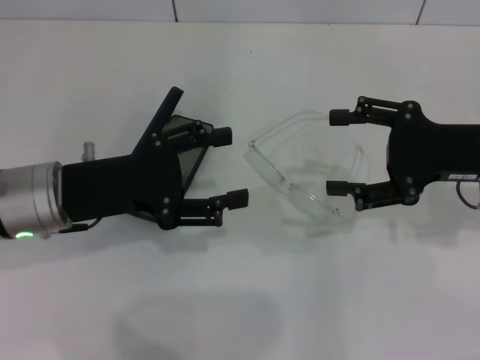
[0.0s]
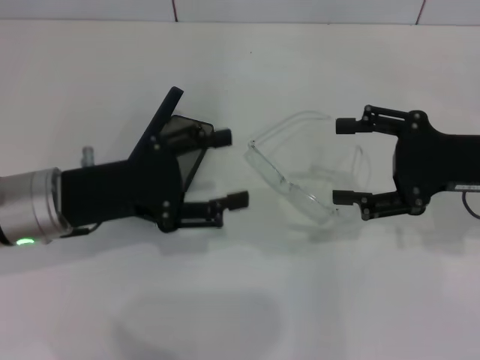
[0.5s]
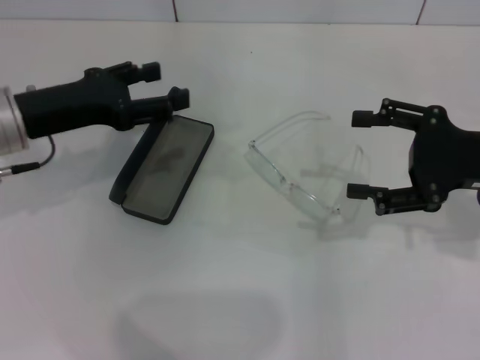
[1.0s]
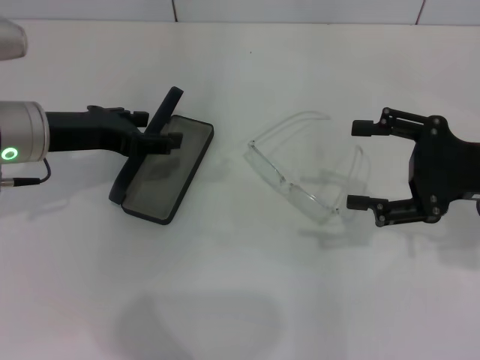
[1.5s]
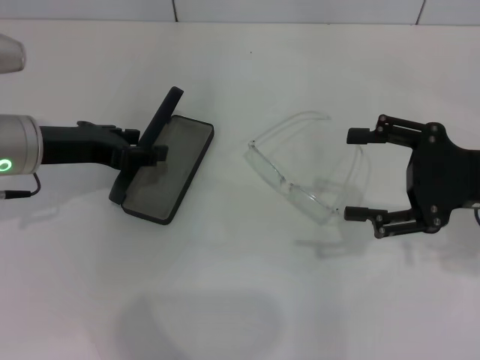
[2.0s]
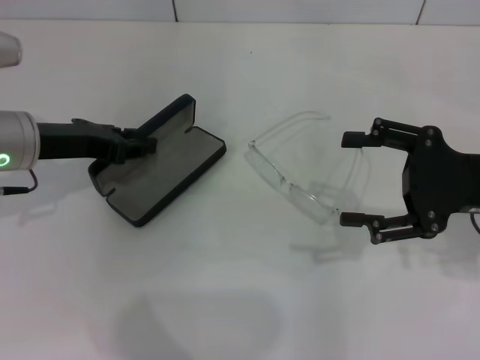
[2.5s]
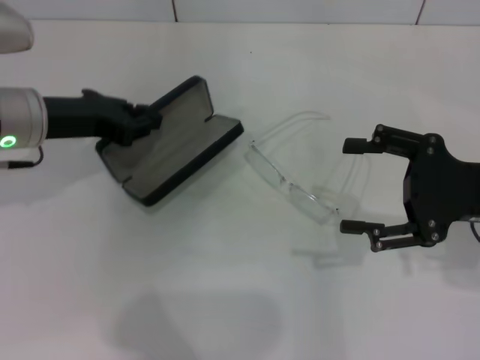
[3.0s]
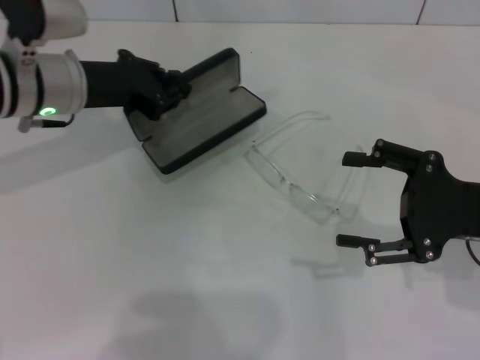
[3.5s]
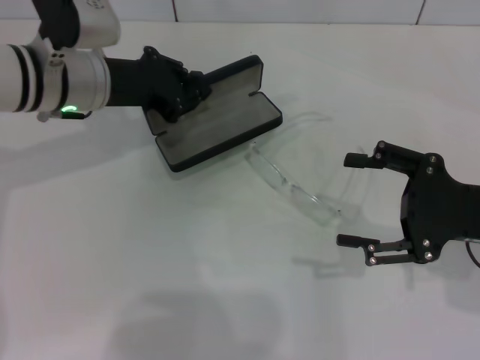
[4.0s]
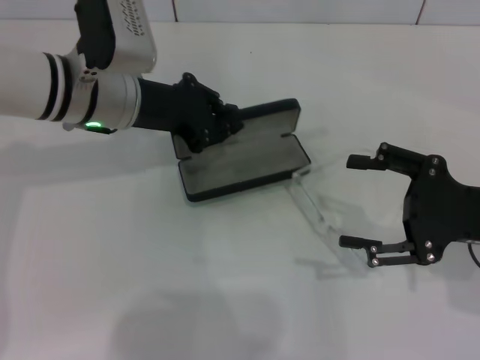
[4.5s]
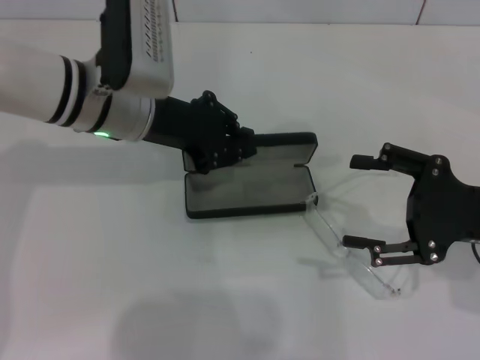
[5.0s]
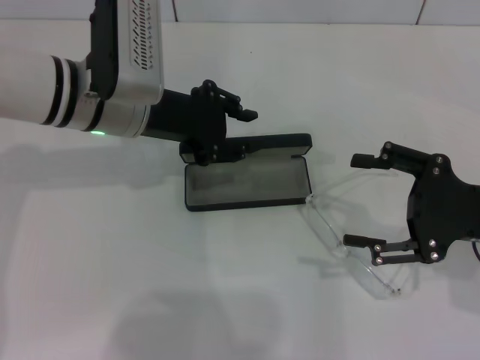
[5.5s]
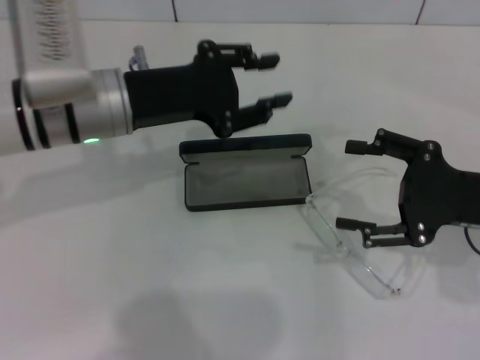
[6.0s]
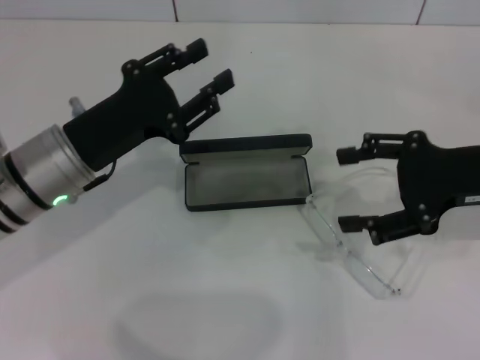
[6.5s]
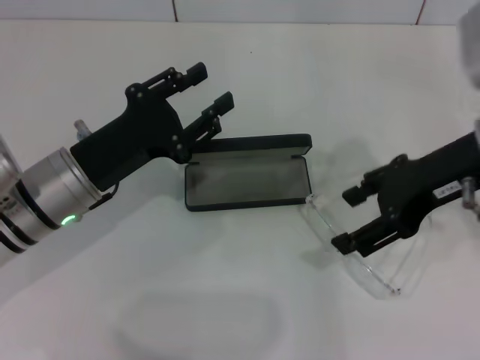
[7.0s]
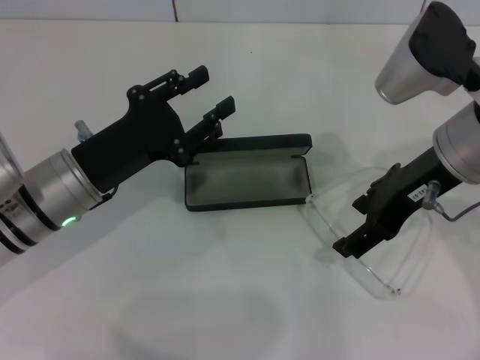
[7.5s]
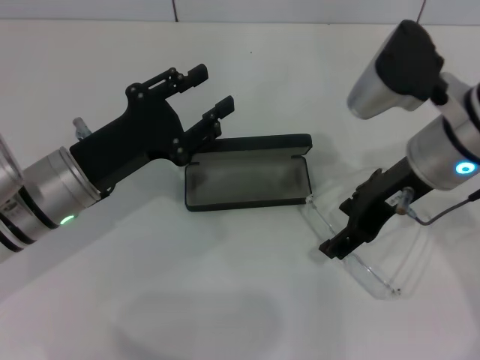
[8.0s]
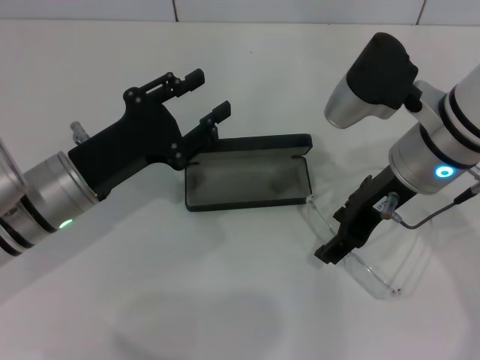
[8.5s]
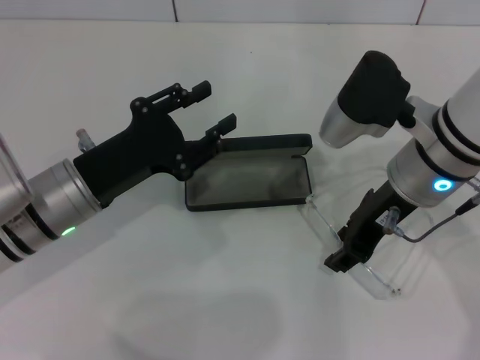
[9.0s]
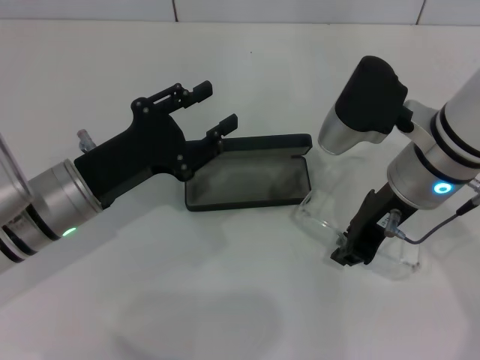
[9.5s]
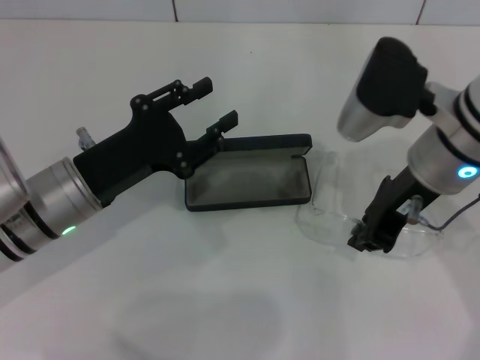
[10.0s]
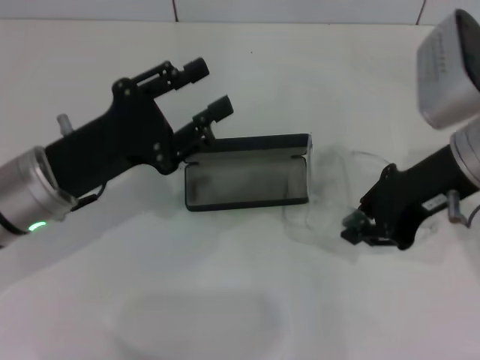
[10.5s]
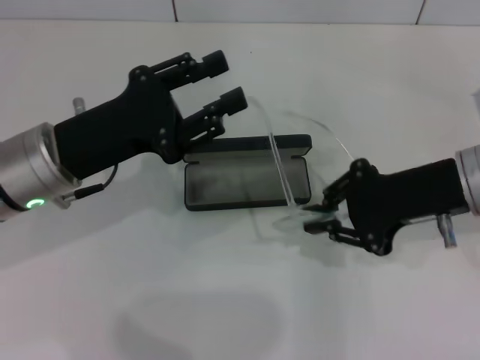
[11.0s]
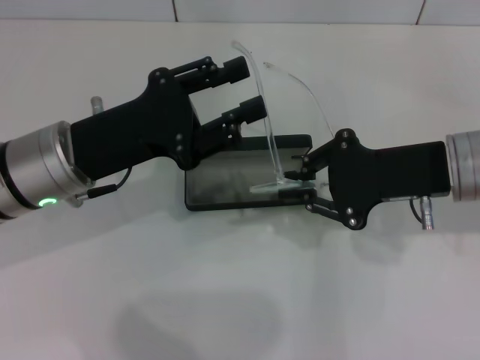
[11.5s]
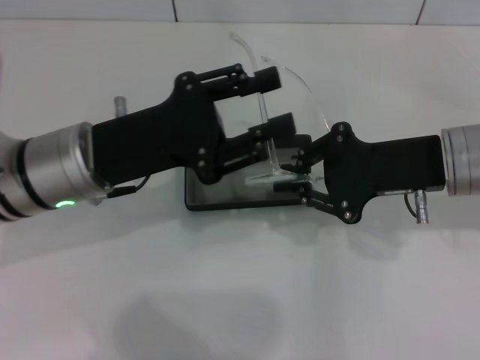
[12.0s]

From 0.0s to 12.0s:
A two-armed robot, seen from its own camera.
Step, from 0.0s to 2.0s: Grab the glasses case with your left hand.
Step, from 2.5s to 5.0s: Place the glasses case in the center of the table with your left hand.
Step, from 6.0s to 9.0s: Grab the eyeglass frame with your right hand.
From 0.0s to 2.0s: The left gripper heads forward, covering approximately 5 cm.
From 2.0s to 4.0s: The left gripper heads to the right and forward, covering roughly 10 cm, and closes up.
From 4.0s to 6.0s: The left gripper ends up approximately 5 cm from where it was, and opens.
From 6.0s to 8.0s: The left gripper goes approximately 10 cm downward and backward; the right gripper travels to the left, upward and forward by roughly 15 cm.
From 8.0s to 10.0s: The right gripper closes.
From 10.0s to 12.0s: The right gripper shifts by some 5 cm; the left gripper goes roughly 5 cm upward.

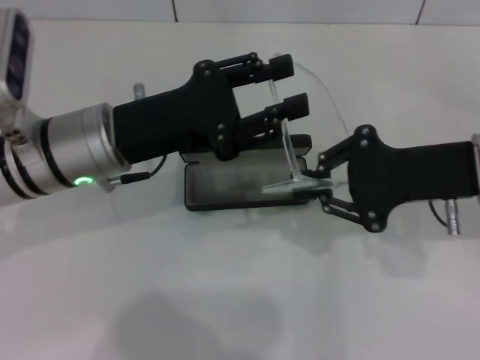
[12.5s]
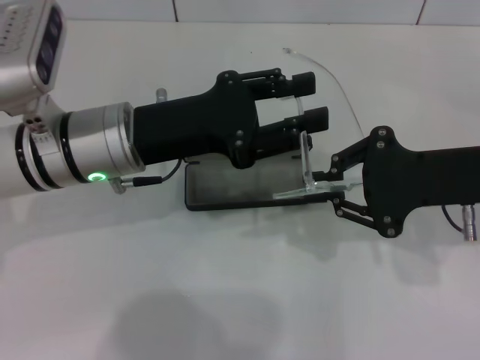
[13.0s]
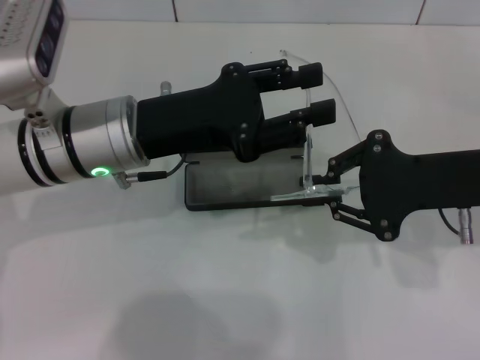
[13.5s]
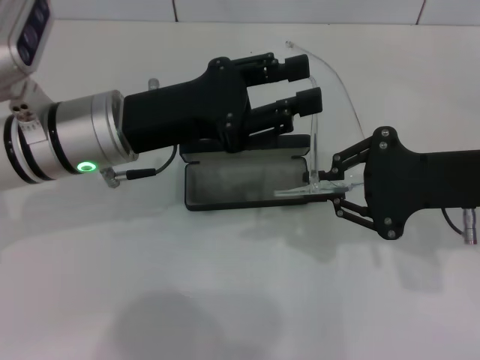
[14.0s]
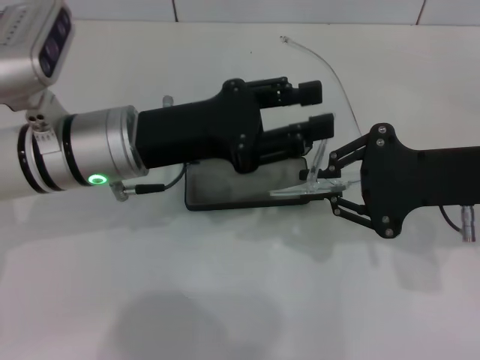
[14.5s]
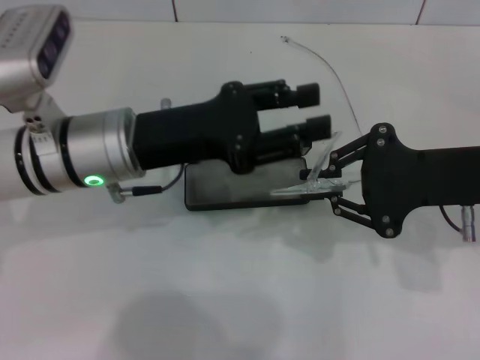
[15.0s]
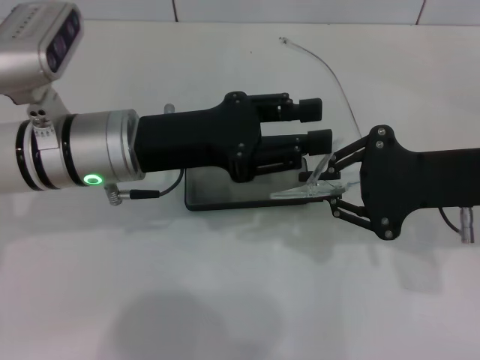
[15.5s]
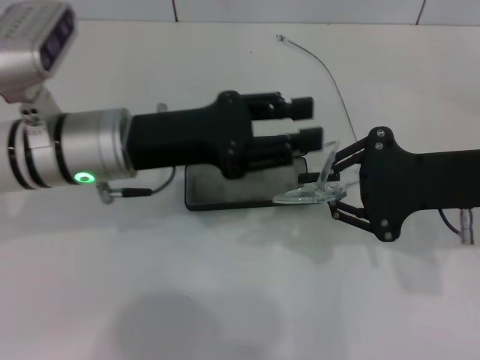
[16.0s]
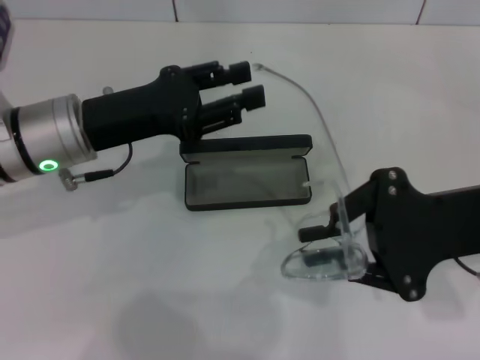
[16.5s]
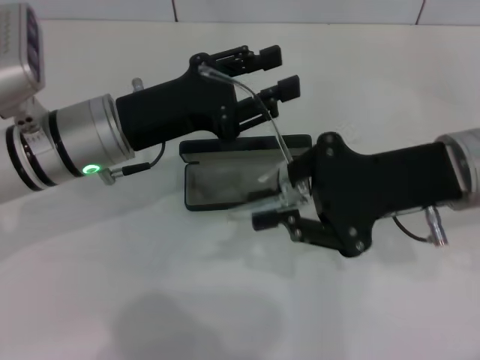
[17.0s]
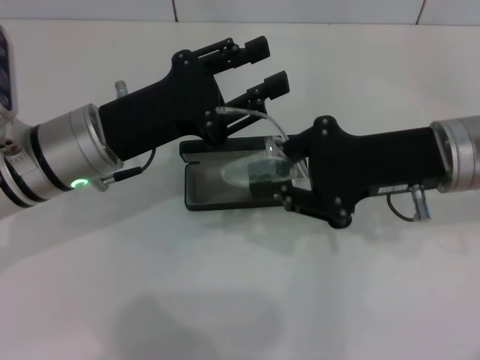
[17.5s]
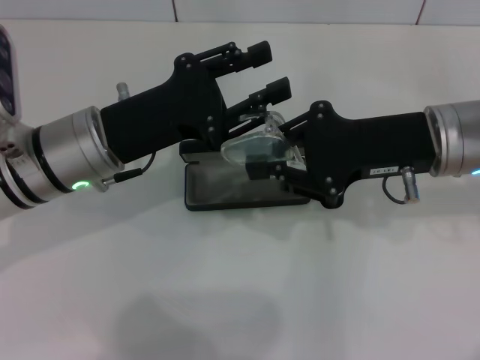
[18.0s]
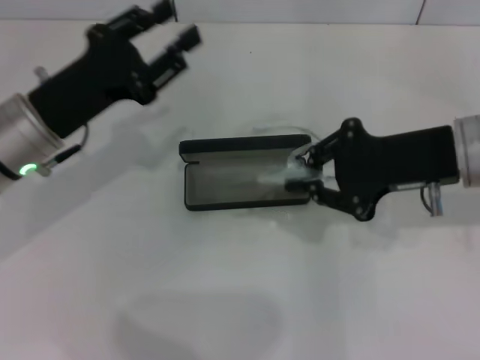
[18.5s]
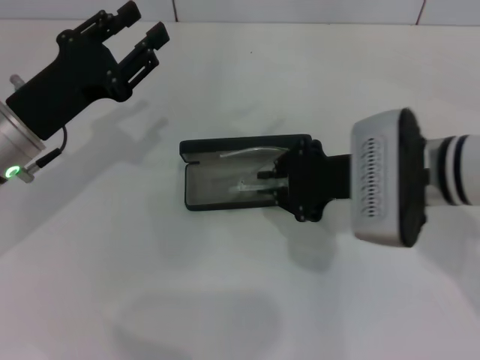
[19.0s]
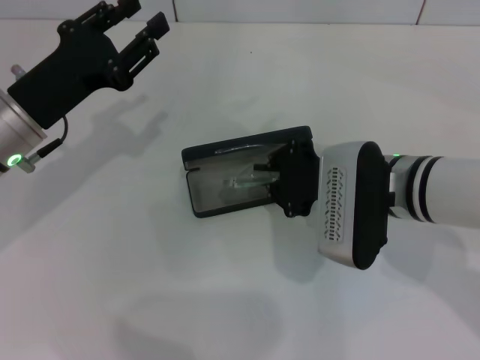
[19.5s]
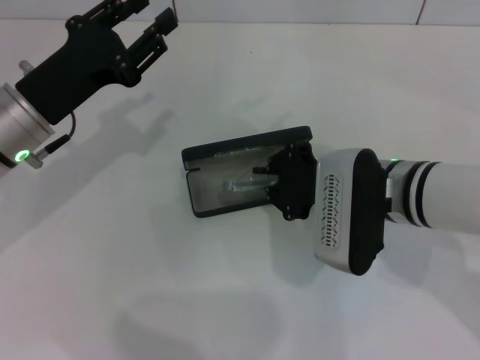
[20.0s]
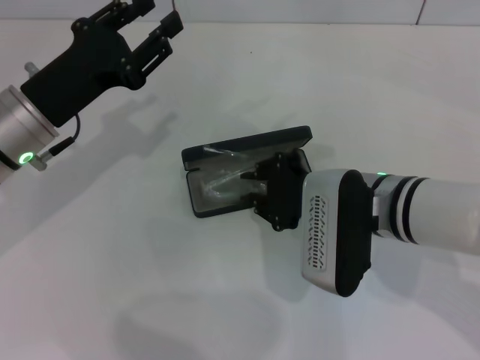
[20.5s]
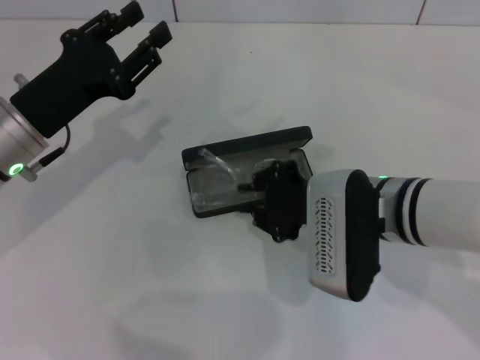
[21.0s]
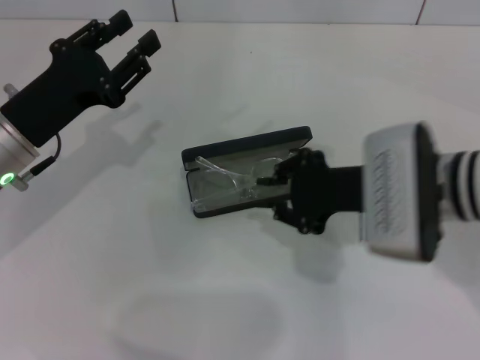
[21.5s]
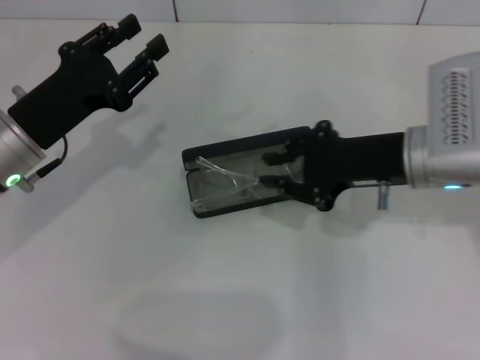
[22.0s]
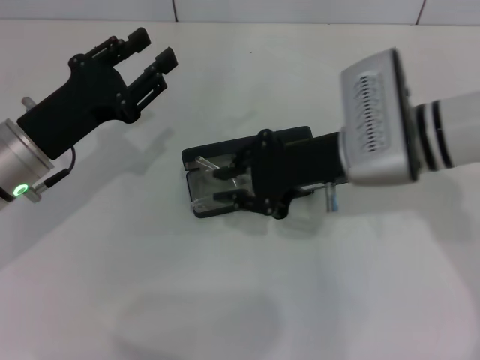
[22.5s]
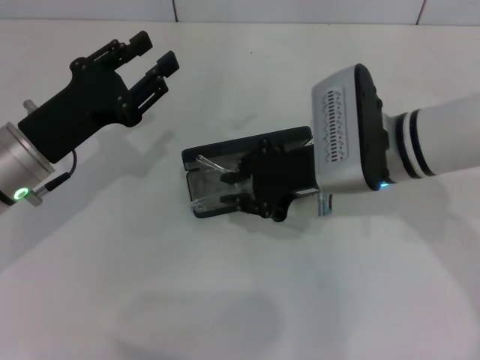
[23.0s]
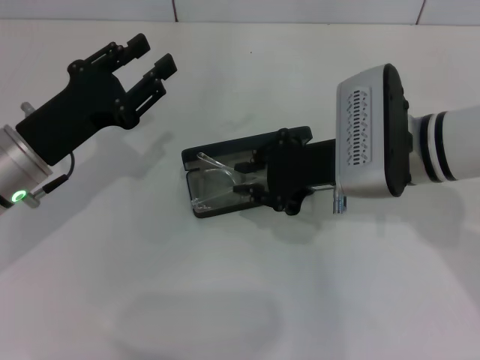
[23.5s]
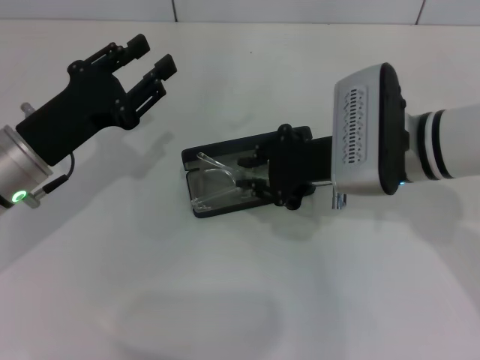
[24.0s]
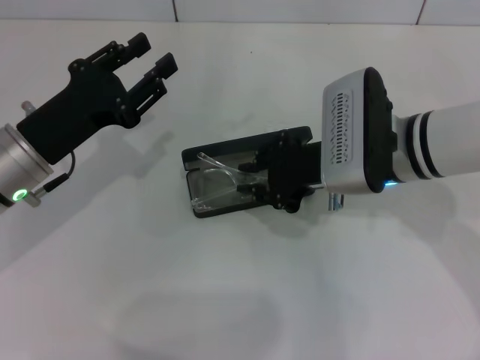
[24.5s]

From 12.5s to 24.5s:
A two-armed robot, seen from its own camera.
Step, from 12.5s to 18.0s: Lift the glasses with your right hand.
Step, from 18.5s to 21.0s: Fold the frame with your left hand.
From 12.5s to 14.5s: The grippers move only a little.
From 16.5s to 18.5s: The right gripper ends up roughly 5 cm from where it was.
From 18.5s to 20.5s: The right gripper heads to the left and downward, covering roughly 10 cm.
From 20.5s to 22.5s: The right gripper heads upward, covering some 5 cm.
From 22.5s to 24.5s: The grippers make only small movements.

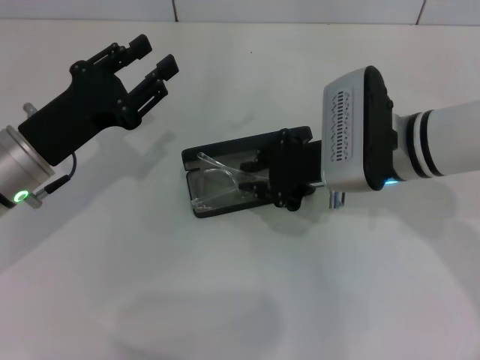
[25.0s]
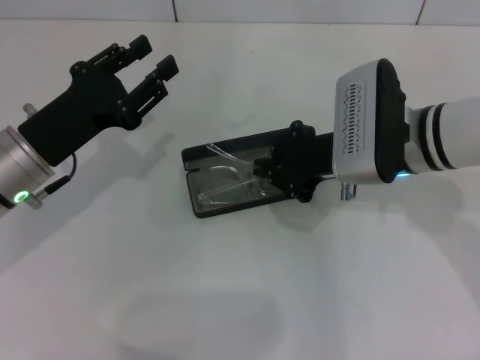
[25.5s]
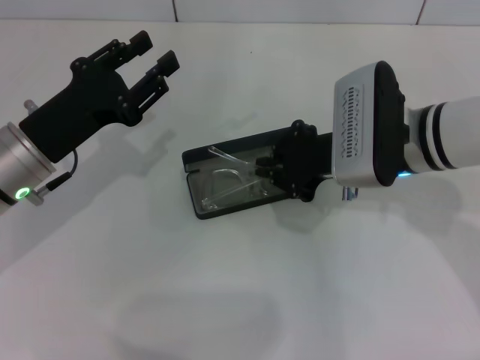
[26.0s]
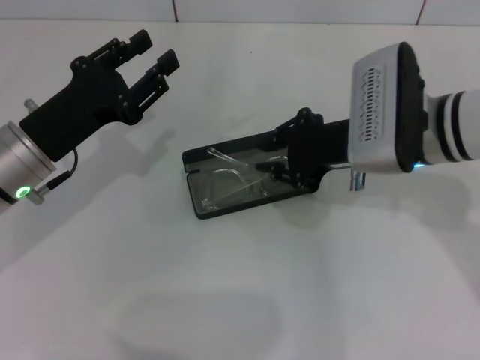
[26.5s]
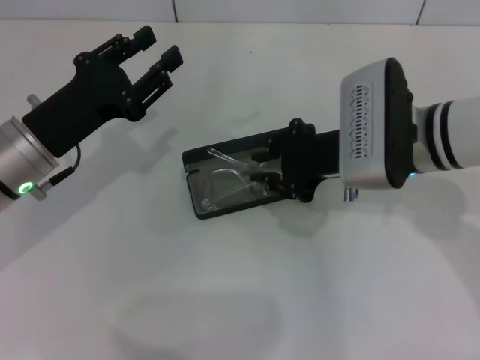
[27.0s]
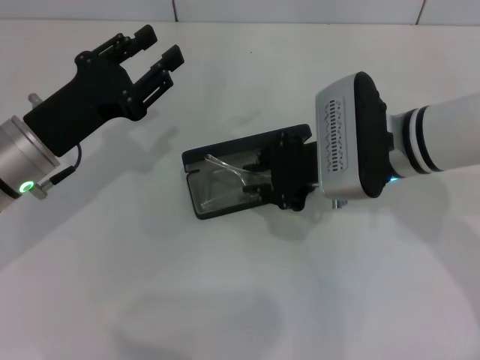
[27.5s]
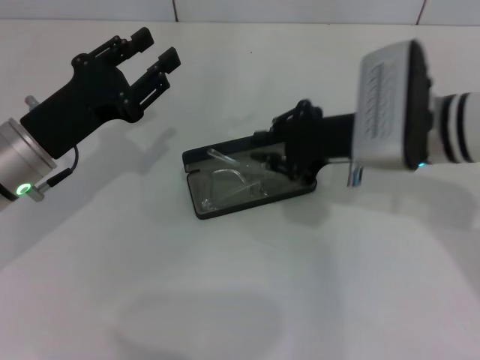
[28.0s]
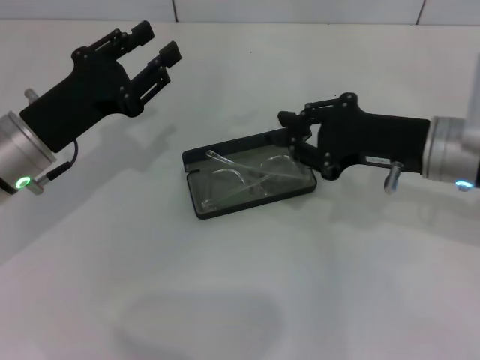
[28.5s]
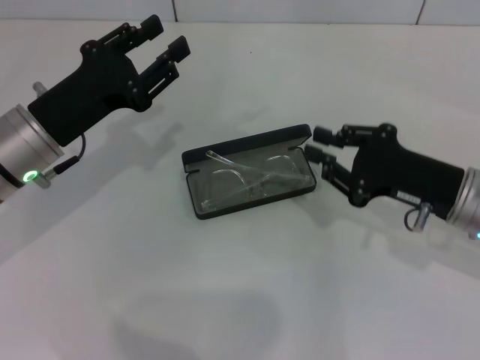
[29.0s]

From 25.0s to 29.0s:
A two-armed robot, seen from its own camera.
From 25.0s to 27.0s: There are only small adjustments of the grippers.
From 27.0s to 29.0s: The right gripper heads to the right and downward, covering about 10 cm.
